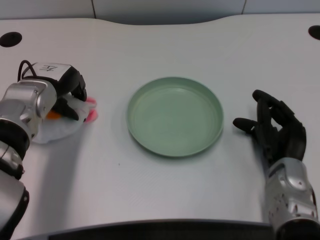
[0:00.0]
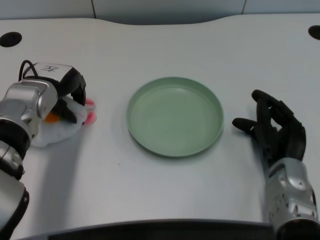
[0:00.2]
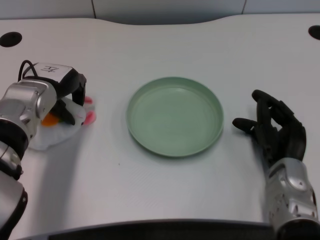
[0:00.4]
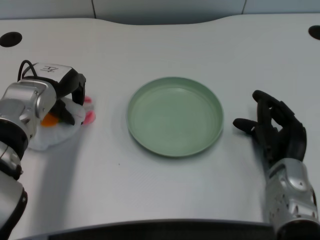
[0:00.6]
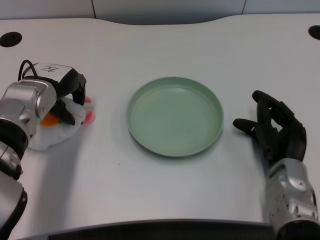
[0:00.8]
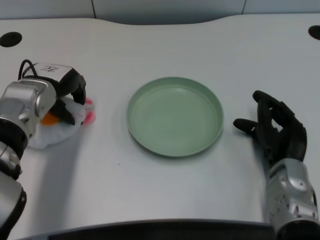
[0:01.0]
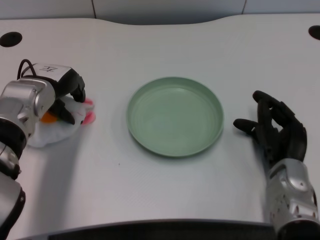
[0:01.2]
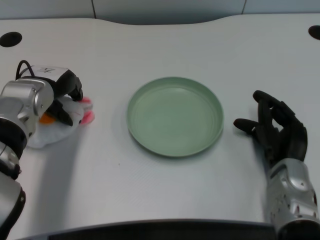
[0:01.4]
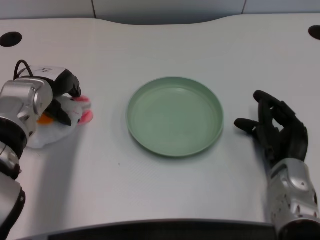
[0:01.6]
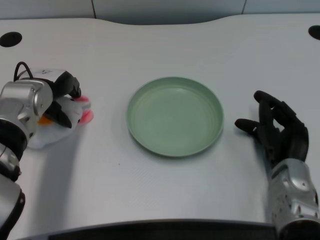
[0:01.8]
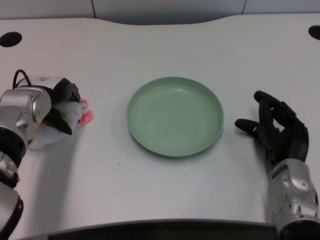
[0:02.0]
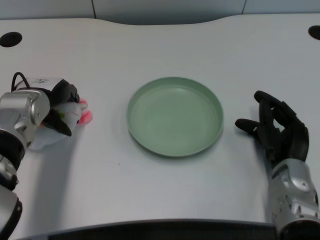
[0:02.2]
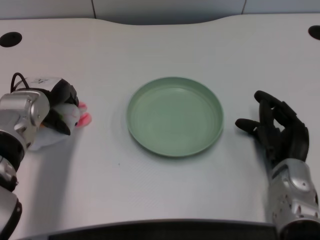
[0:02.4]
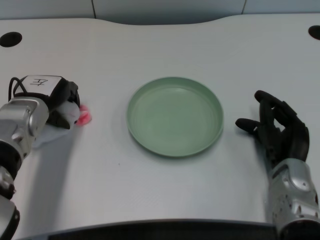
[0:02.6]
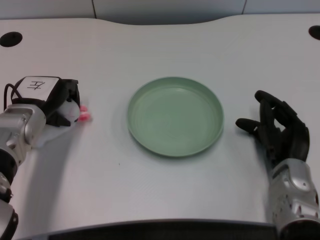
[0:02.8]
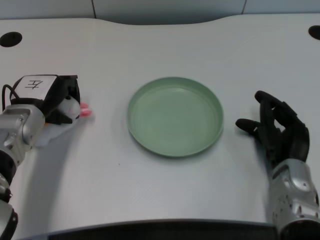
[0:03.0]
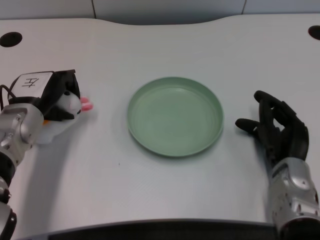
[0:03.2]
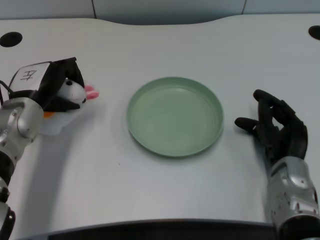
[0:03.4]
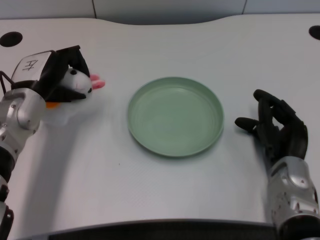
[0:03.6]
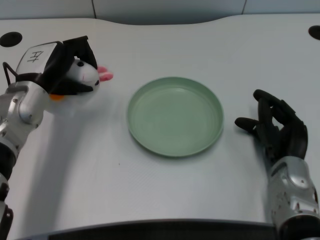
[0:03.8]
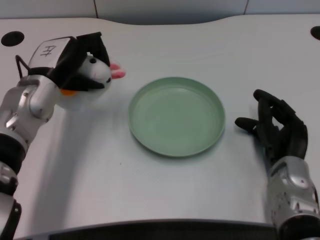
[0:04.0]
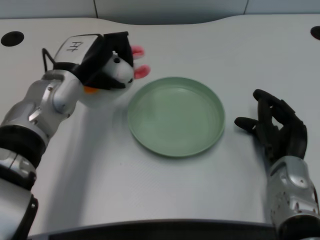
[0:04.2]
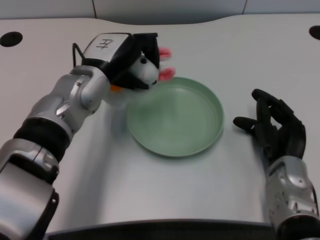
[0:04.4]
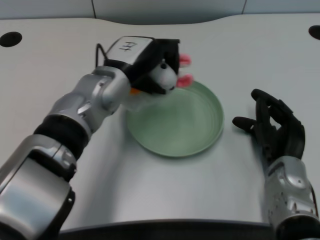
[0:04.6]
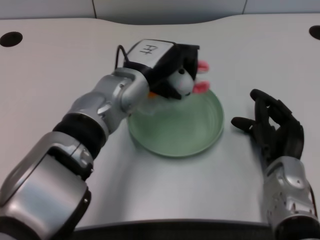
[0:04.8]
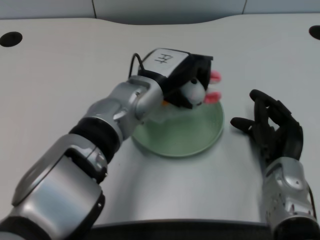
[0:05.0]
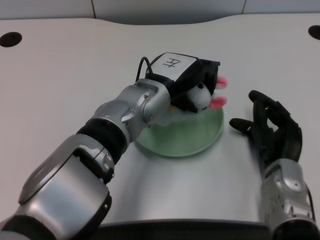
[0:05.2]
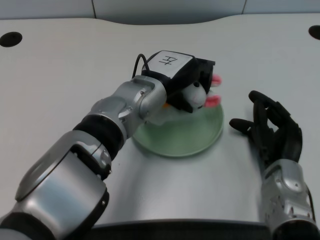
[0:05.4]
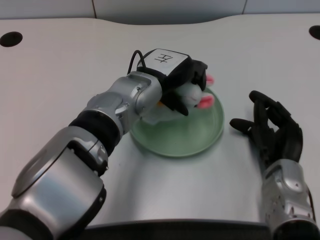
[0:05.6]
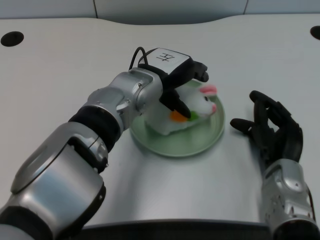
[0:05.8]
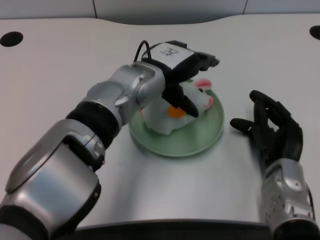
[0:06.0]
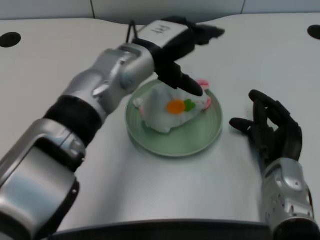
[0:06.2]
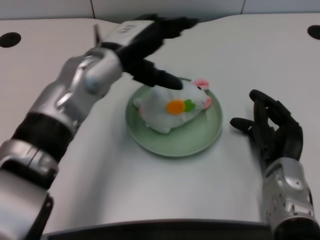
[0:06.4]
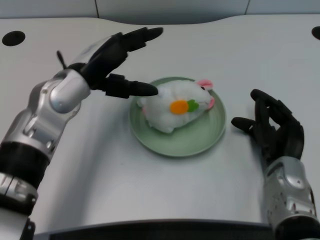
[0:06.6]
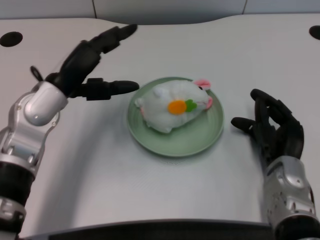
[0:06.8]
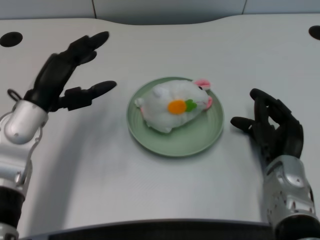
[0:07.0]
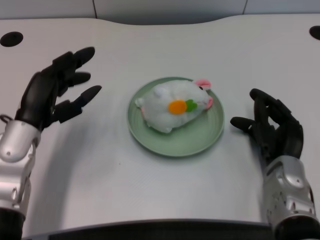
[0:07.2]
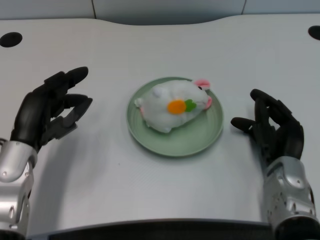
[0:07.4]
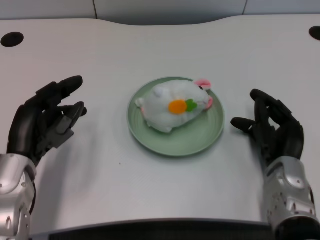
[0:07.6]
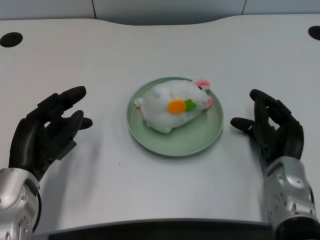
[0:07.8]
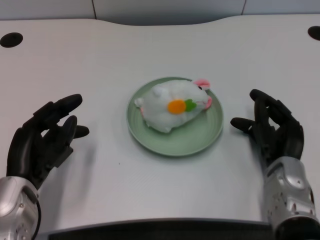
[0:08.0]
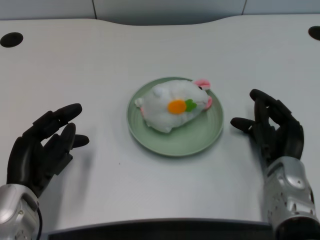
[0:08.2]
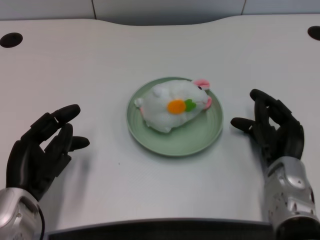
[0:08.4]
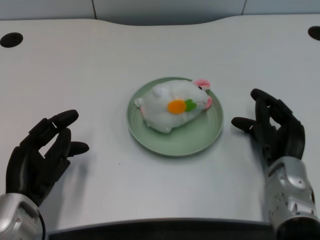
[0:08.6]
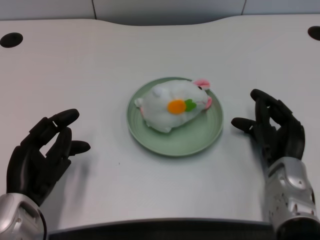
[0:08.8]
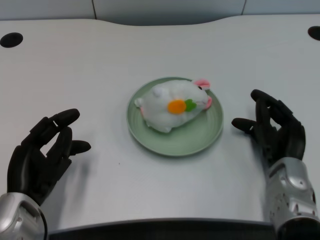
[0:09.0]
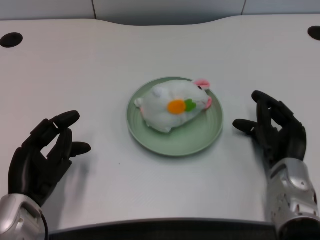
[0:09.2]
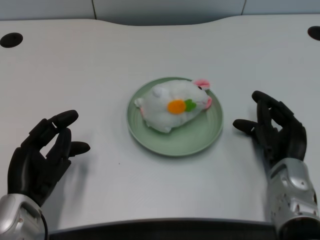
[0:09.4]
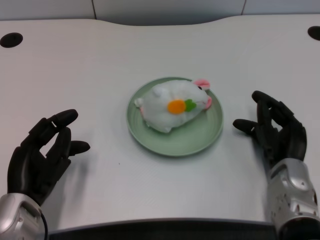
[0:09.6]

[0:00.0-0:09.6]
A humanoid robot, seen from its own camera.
Task of the whole recording: pick up the rabbit doll from the table and place it on the plate.
Step, 0:00.0 to 0:03.4: Grasp the rabbit doll with the left gripper.
Step, 0:03.6 to 0:05.8: Place the rabbit doll into the plate with the left gripper.
0:00.0 to 0:01.6: The hands move only a little.
0:03.2 to 0:04.8: The left hand is displaced to the right by about 15 cm.
0:04.8 to 0:06.4: The left hand moves some 5 cm.
0:06.4 to 0:08.0: The left hand heads backward, downward and to the left, covering approximately 20 cm.
0:08.0 to 0:09.6: The hands stay close to where they were, moving slightly.

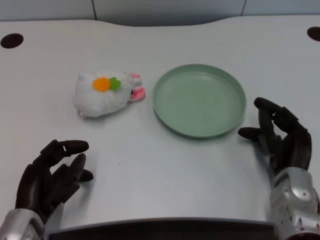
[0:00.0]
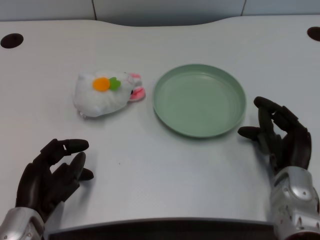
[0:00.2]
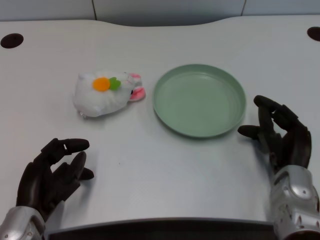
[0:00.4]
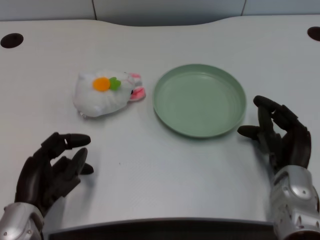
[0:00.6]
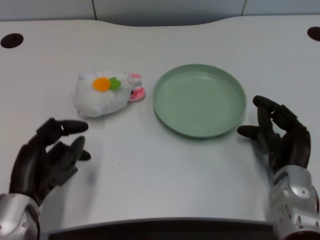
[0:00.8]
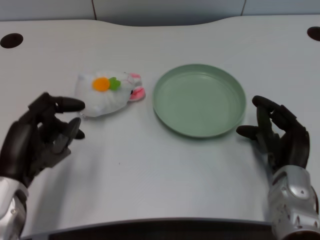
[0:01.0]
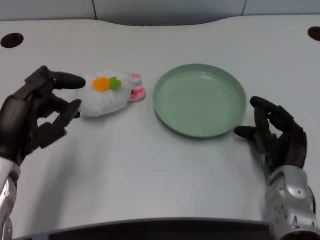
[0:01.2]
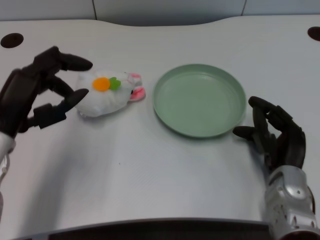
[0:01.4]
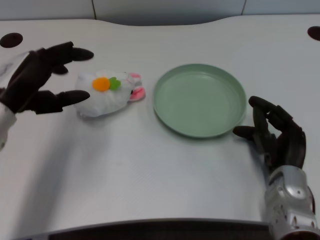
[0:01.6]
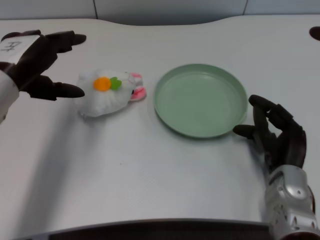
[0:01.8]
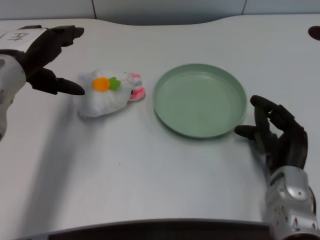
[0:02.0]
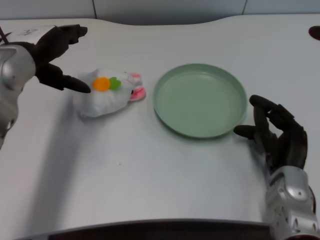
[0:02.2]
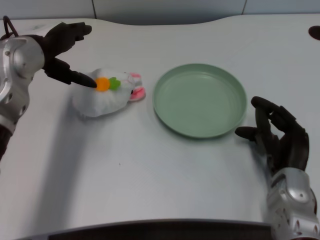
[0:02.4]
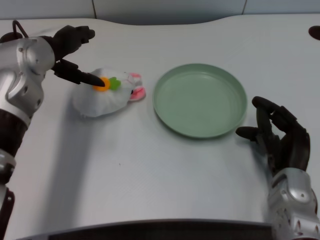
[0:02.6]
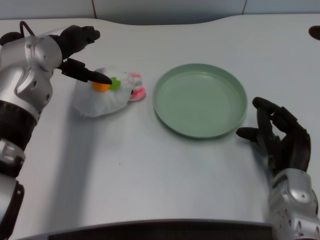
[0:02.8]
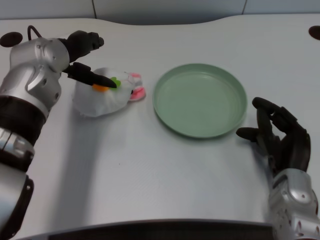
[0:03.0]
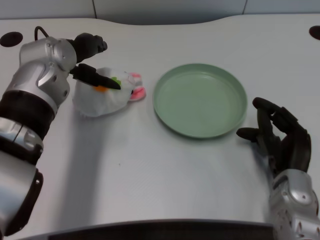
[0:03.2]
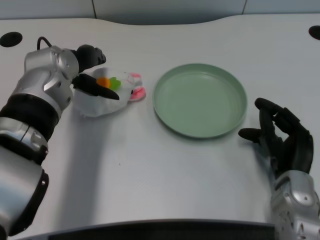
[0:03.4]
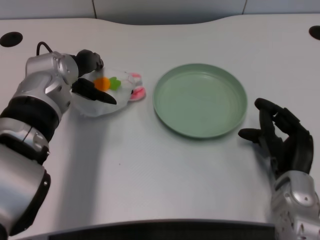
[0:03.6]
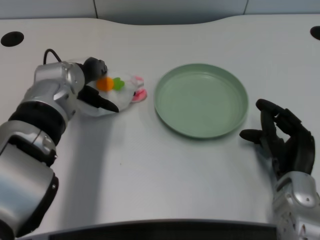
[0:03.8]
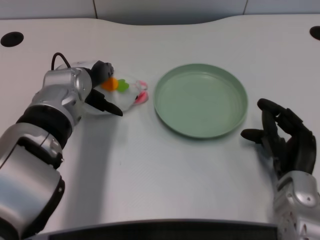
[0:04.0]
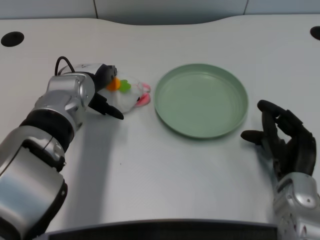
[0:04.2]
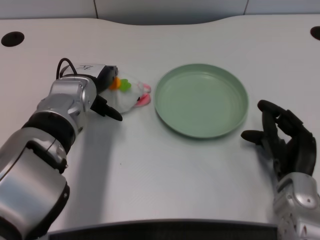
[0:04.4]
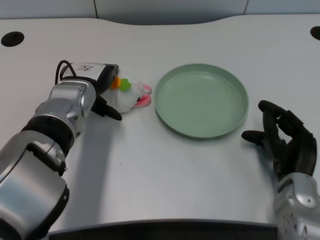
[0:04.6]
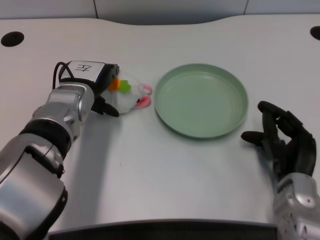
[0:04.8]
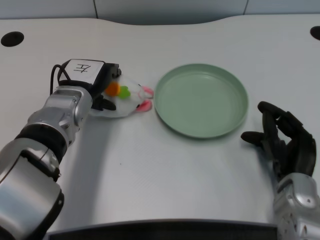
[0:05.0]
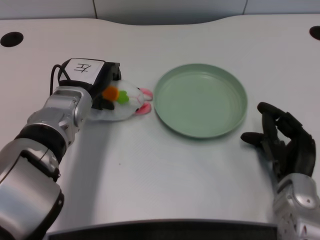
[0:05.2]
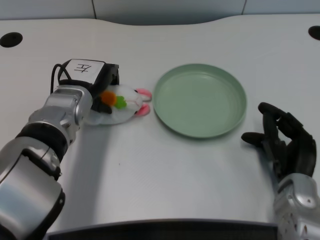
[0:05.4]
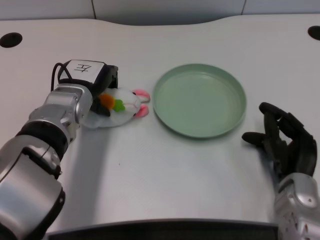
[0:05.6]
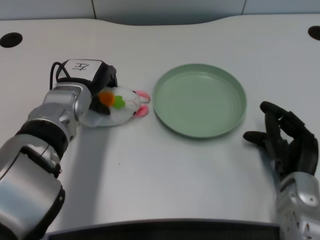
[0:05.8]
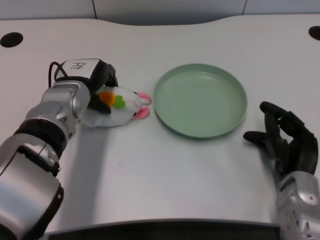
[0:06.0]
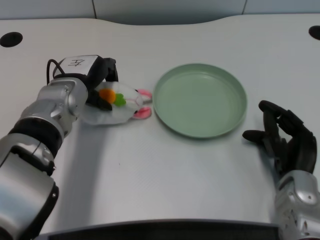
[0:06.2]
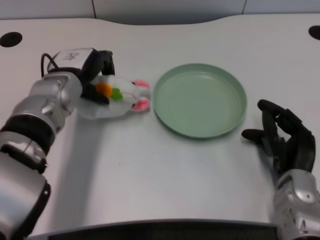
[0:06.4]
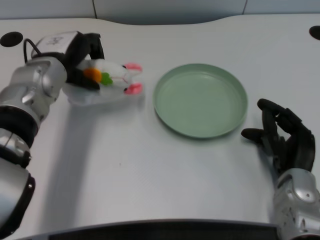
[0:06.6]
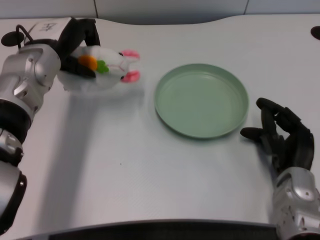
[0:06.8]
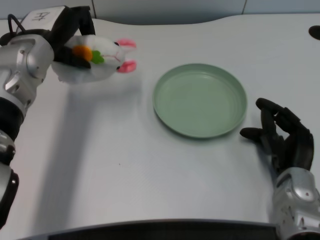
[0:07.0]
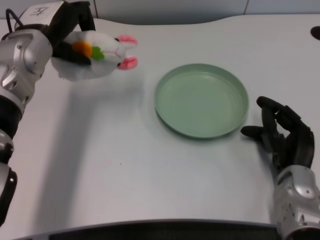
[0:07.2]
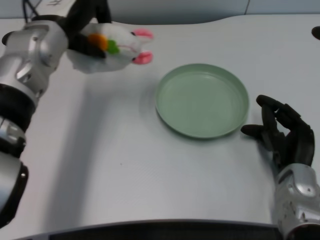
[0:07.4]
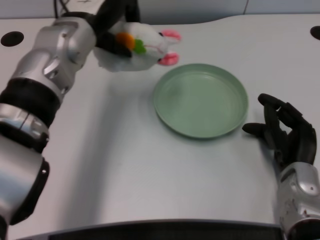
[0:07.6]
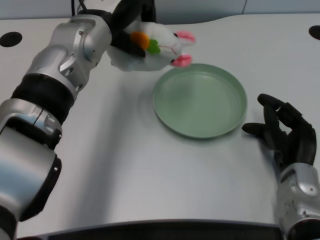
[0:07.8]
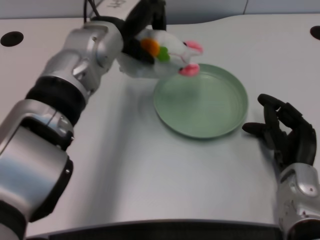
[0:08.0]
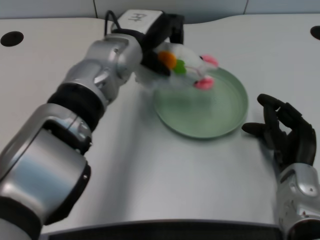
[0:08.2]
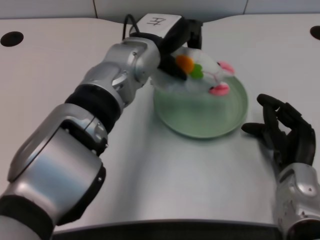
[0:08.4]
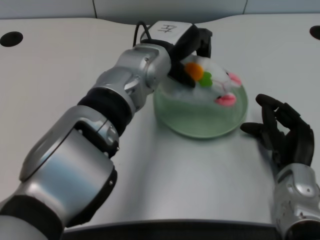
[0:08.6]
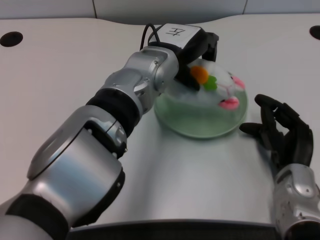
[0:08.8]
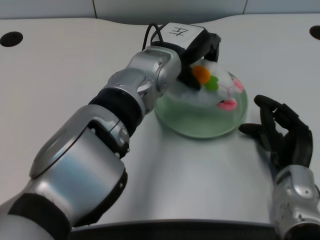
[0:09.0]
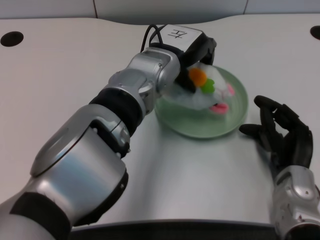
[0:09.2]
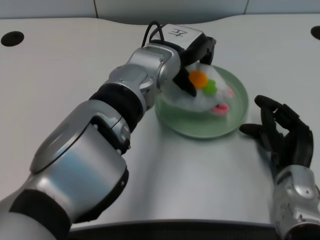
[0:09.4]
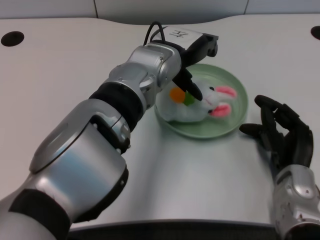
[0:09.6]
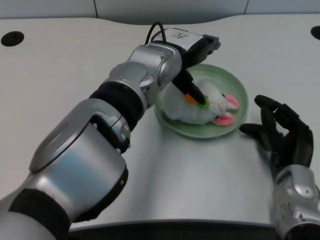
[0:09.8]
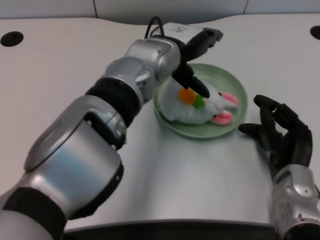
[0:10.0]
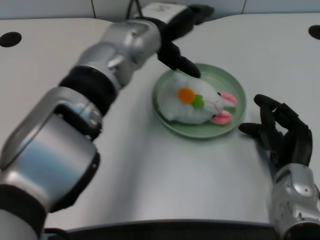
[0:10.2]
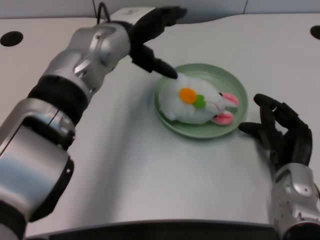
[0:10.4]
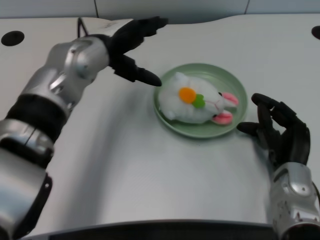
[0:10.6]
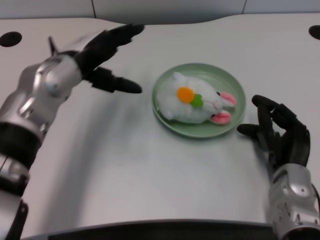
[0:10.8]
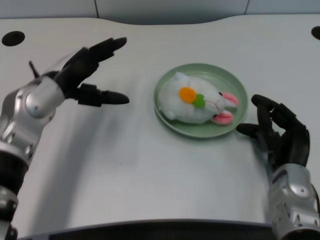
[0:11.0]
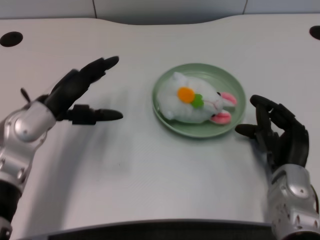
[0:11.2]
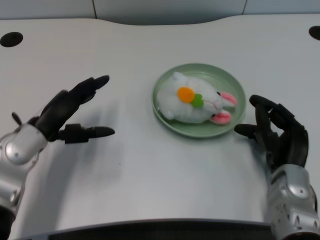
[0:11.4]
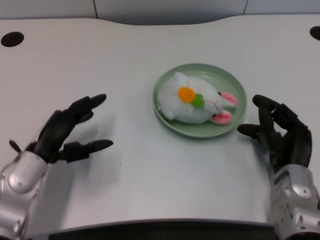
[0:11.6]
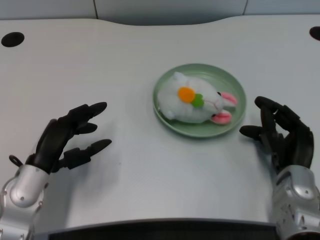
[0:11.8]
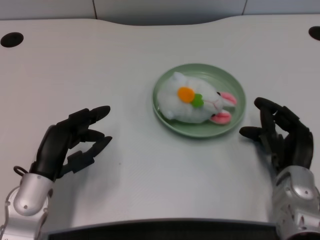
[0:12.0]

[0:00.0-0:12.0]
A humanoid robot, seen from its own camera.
Task of the whole recording: pick up the rabbit doll from the table and place it on the plate.
Step, 0:01.0 to 0:06.2: Grasp the rabbit doll with the left gripper.
Step, 0:06.4 to 0:09.6: Place the rabbit doll into the plate with the left gripper.
0:01.6 to 0:03.0: The left hand travels forward and to the right by some 10 cm.
0:03.0 to 0:04.4: The left hand heads downward, covering some 5 cm.
0:04.4 to 0:06.0: There are only small adjustments of the hands.
0:06.0 to 0:07.6: The left hand is displaced upward by about 10 cm.
0:07.6 to 0:09.0: The left hand heads to the right, covering roughly 10 cm.
0:09.0 to 0:10.4: The left hand moves to the left, approximately 5 cm.
0:10.4 to 0:12.0: The left hand travels backward, downward and to the left by some 25 cm.
